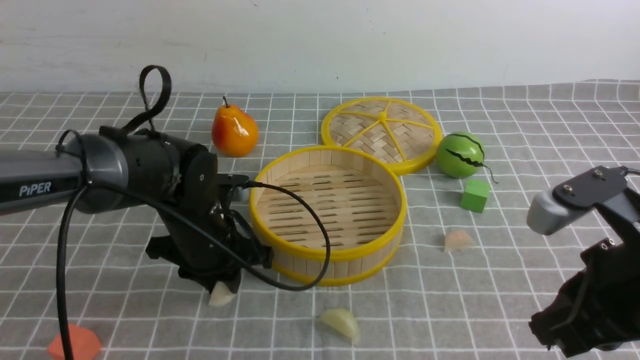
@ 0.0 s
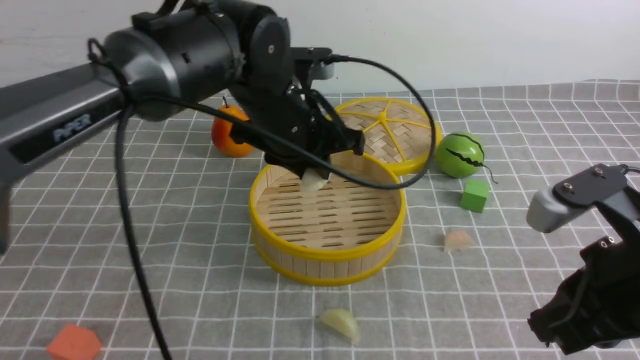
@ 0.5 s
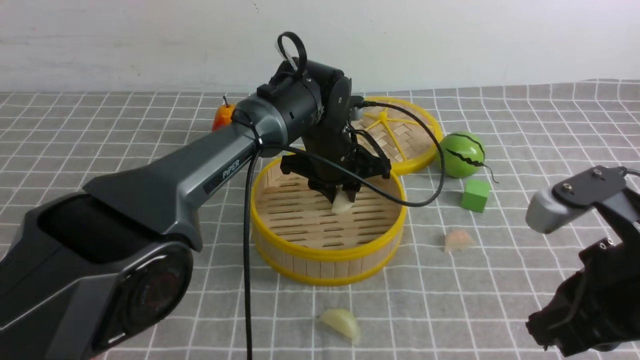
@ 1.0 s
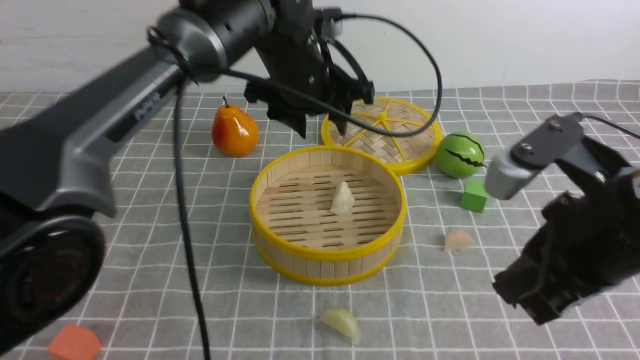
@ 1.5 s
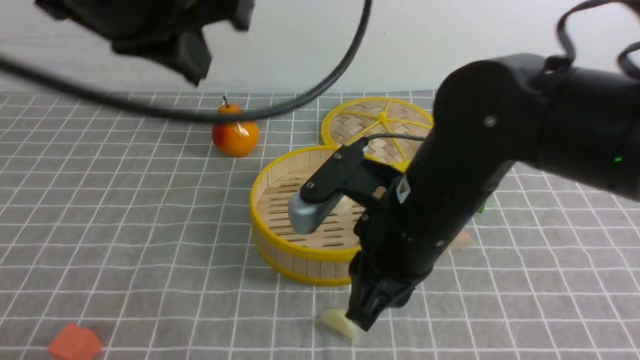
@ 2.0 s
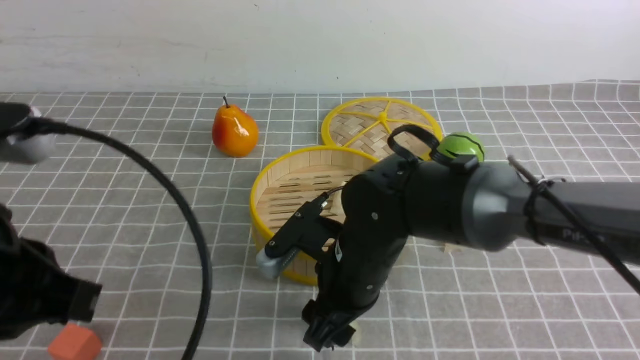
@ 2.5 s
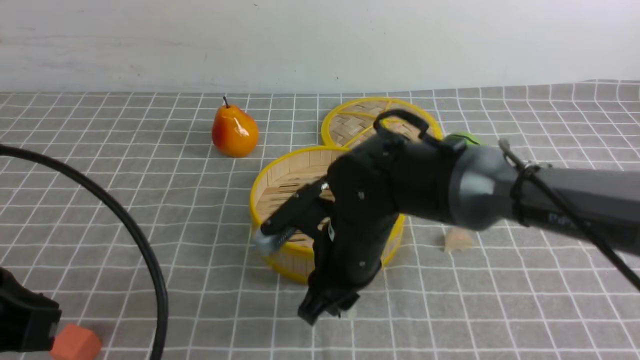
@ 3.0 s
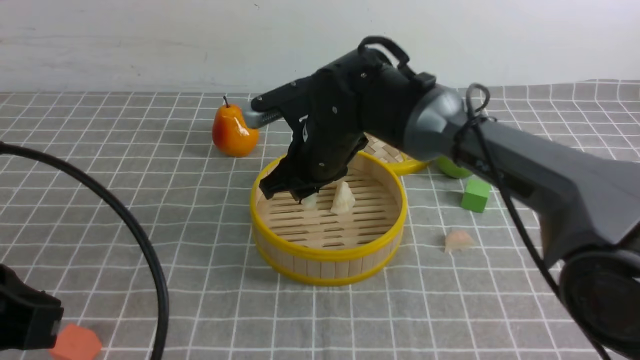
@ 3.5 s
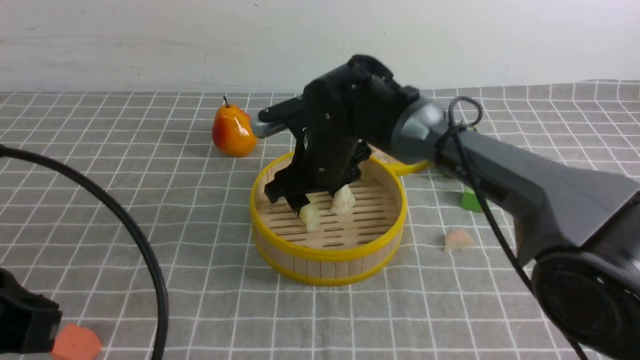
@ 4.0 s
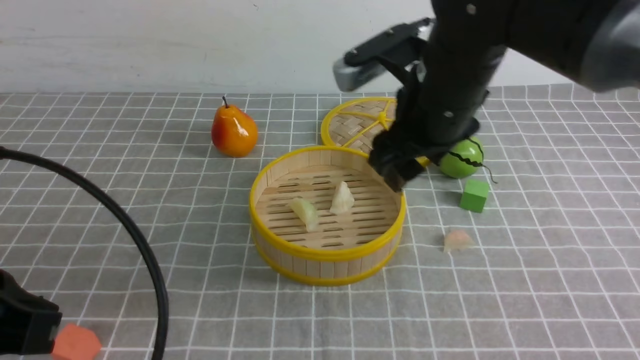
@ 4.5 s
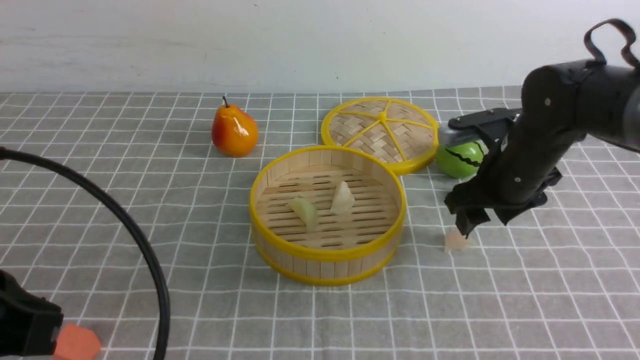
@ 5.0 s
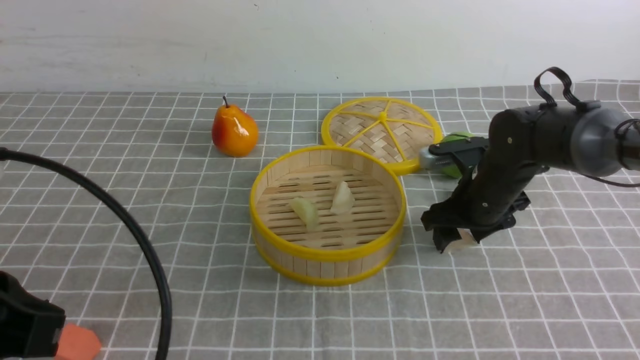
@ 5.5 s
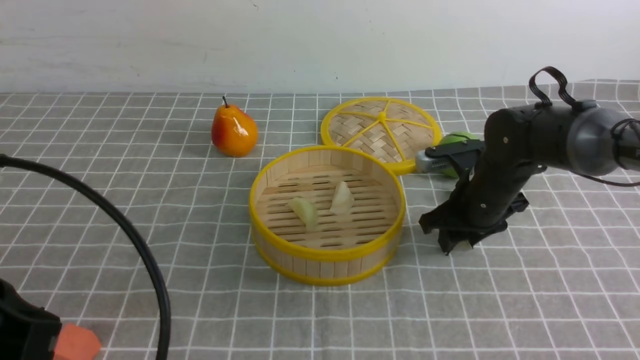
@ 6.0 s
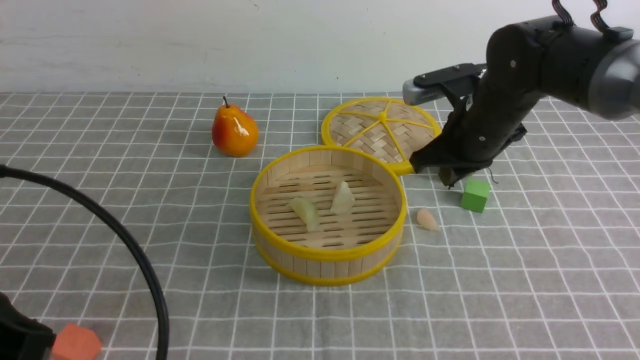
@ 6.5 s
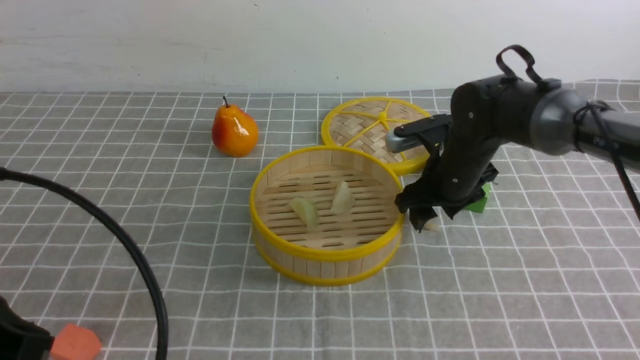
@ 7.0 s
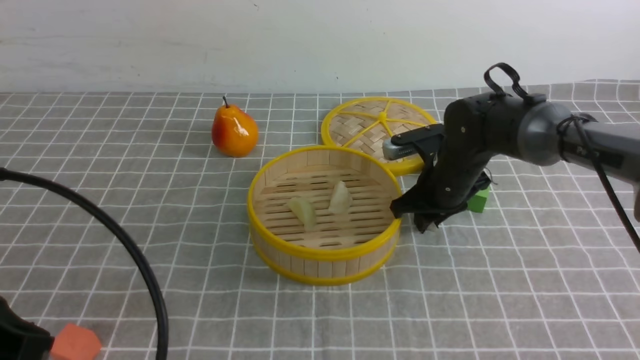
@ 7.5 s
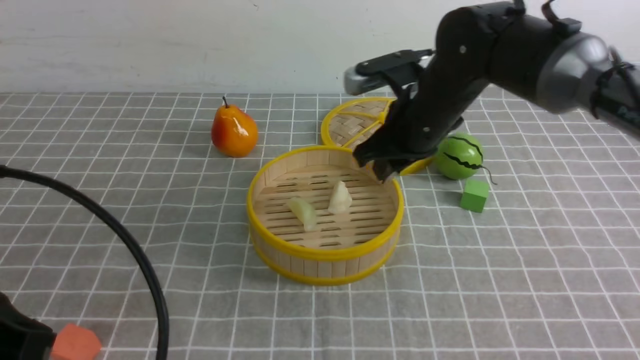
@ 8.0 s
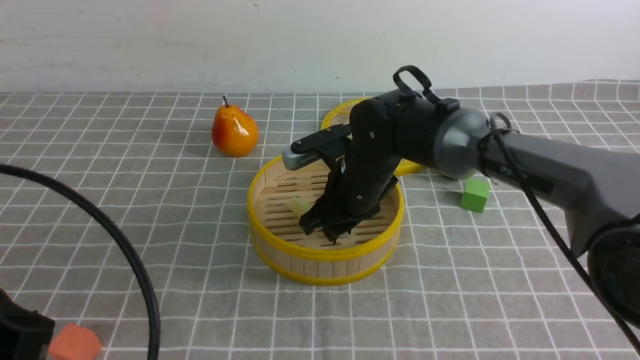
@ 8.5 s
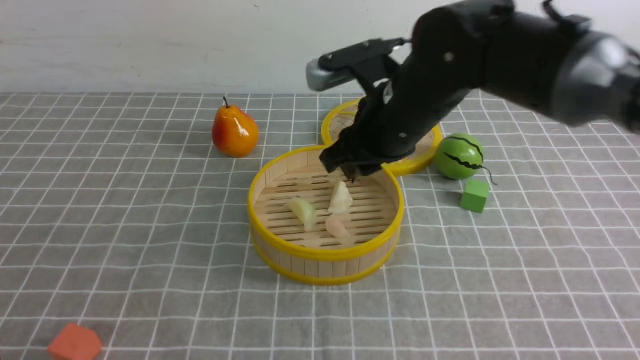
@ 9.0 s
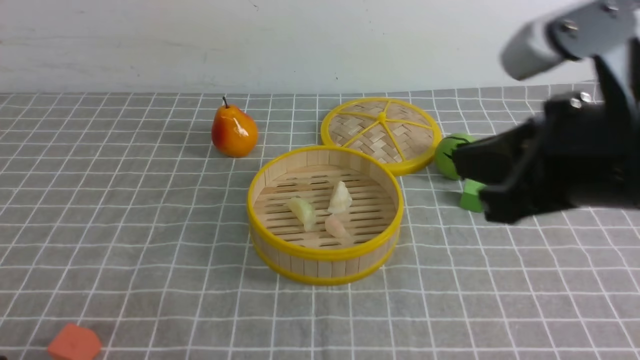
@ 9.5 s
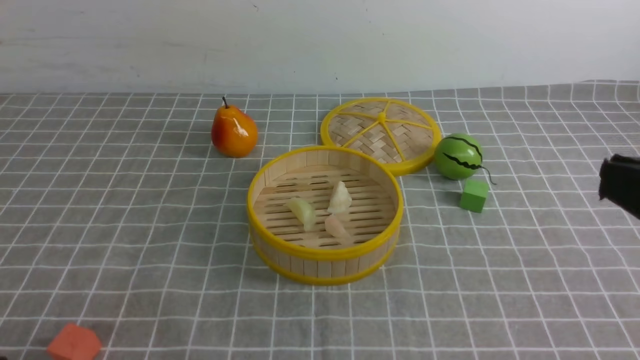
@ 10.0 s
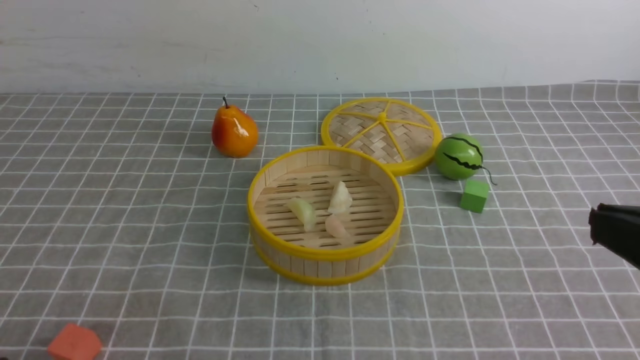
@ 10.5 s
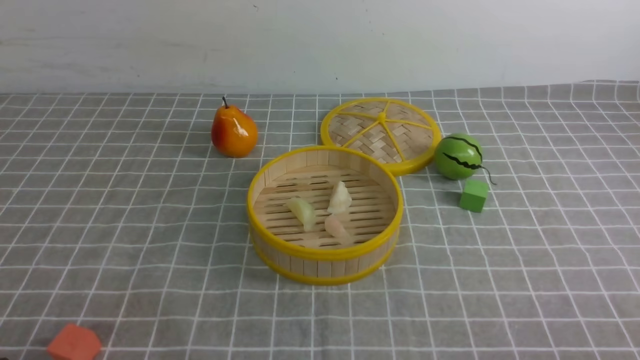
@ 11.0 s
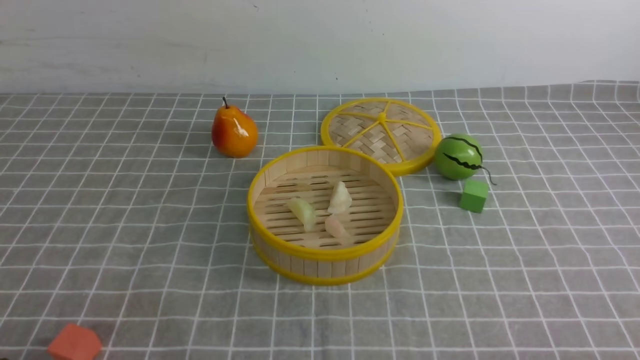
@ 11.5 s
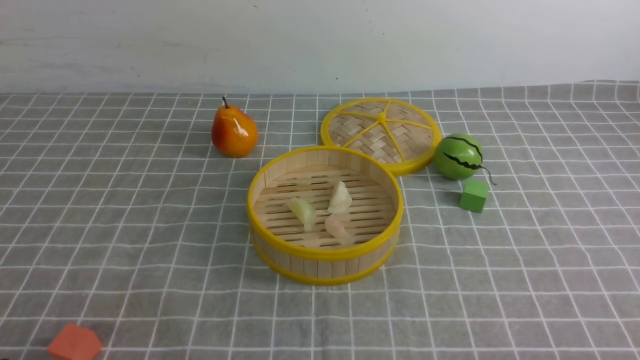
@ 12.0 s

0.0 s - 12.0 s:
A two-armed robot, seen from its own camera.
Task of the whole recording: put the dumplings into the steamer on the table with the grey tablecloth.
Step, 0.5 s - 1.5 s: use the left arm to put the dumpling into the steamer.
Step, 2.0 s - 2.5 s: use the right arm to grab a dumpling.
Step, 3.5 s - 4.0 s: use the right arm to put the dumpling into the steamer.
Step, 4.5 s - 7.5 s: use the right arm to grab a dumpling.
Step, 8.0 s - 8.5 s: use the right arm to put the dumpling into the steamer.
0.0 s - 2.0 s: The left gripper goes up and down, about 25 cm each way, reversing 2 times, and closes. The right gripper is displaced to the left and forward by roughly 15 cm, and opens its fingers.
2.0 s - 4.0 s: The right gripper travels forward by roughly 15 cm, and opens its fingers, while the left gripper goes about 20 cm backward, downward and to the left.
4.0 s - 6.0 s: The right gripper moves to the right and downward, roughly 20 cm, and closes its fingers.
6.0 s - 8.0 s: The right gripper goes some 10 cm to the left and upward.
8.0 s - 10.0 s: The right gripper goes approximately 35 cm backward and to the right, and closes its fingers. Meanwhile the left gripper shifts about 10 cm backward and downward.
10.0 s - 12.0 s: The right gripper shifts about 20 cm downward.

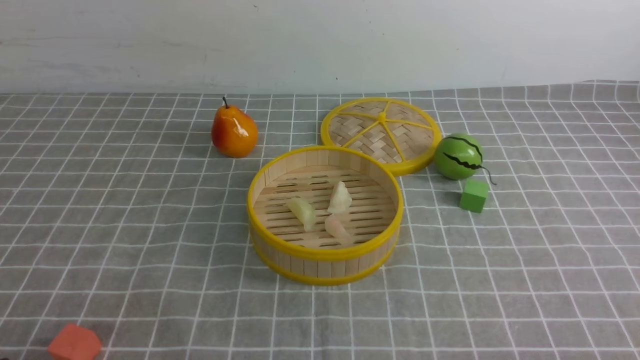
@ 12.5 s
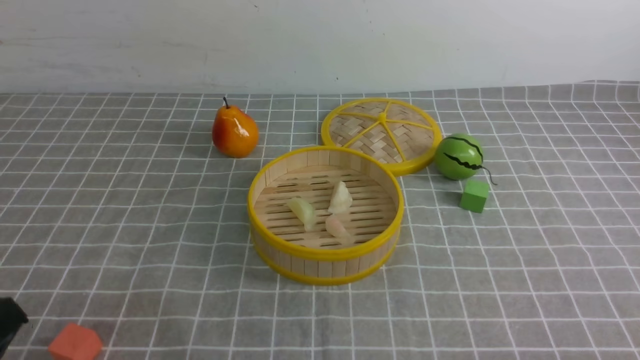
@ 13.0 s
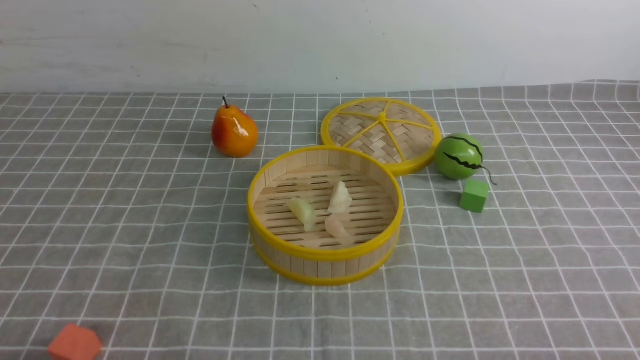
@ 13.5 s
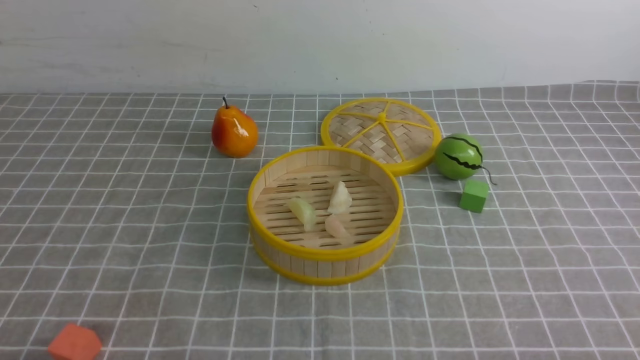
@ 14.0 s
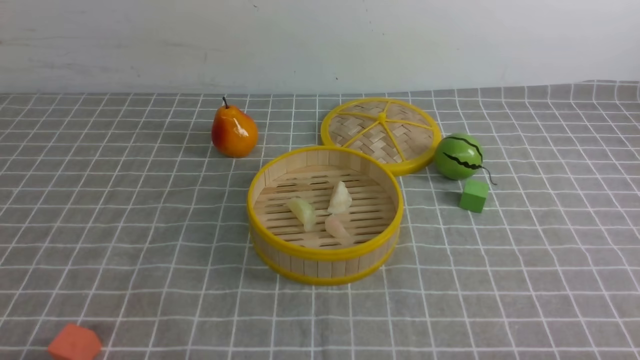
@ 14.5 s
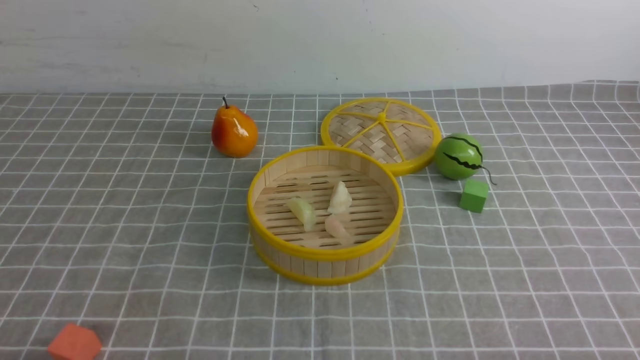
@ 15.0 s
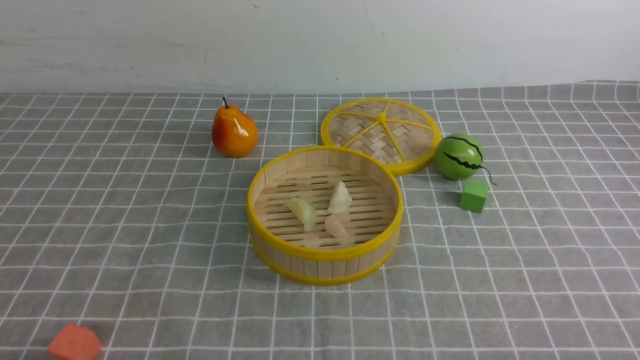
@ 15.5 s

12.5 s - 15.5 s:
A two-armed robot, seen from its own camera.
Task of the whole recording: put the dumplings into the steamer on the table with the grey tablecloth.
14.0 s - 15.5 s: Both grippers stay put.

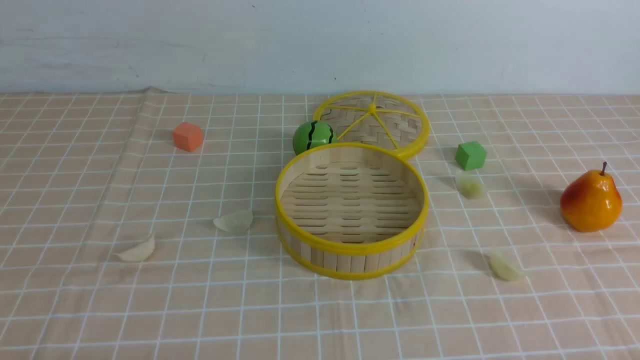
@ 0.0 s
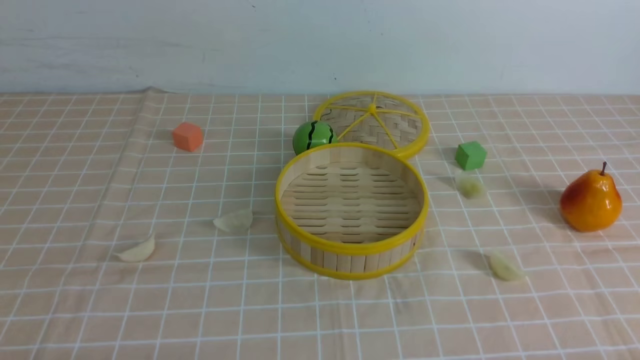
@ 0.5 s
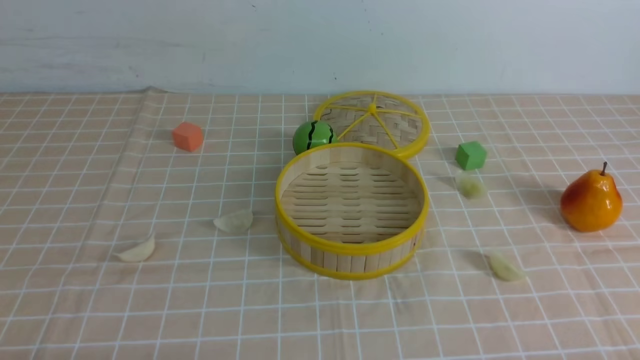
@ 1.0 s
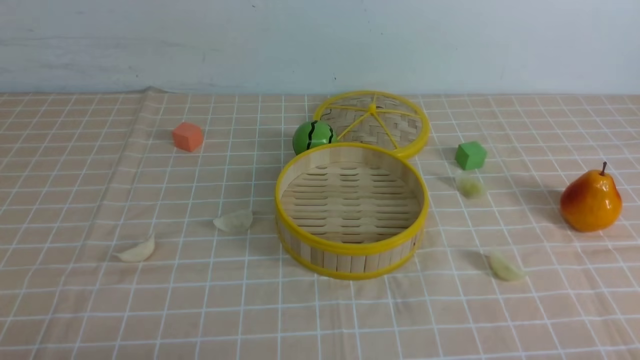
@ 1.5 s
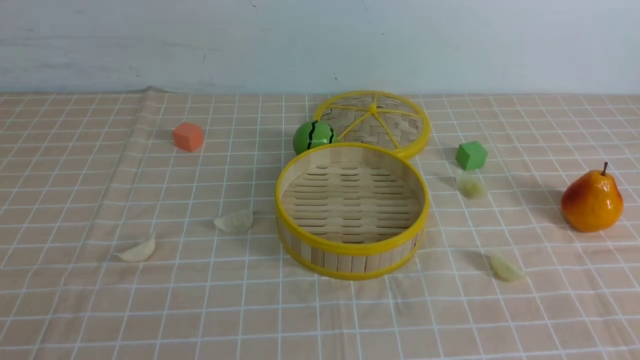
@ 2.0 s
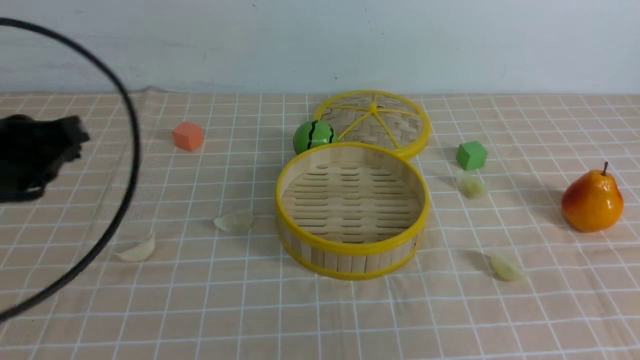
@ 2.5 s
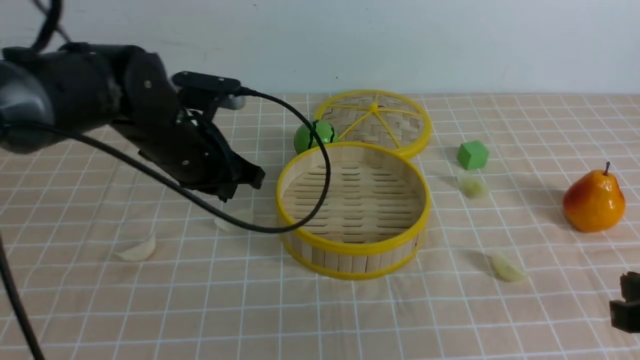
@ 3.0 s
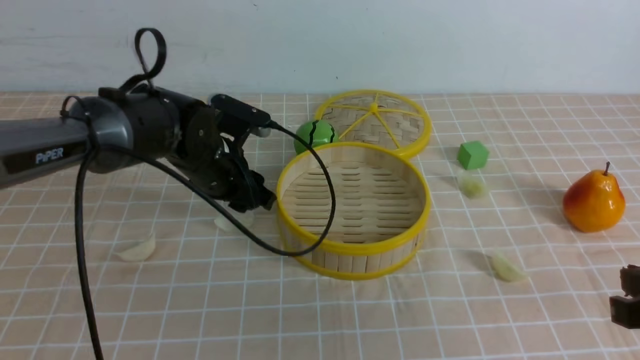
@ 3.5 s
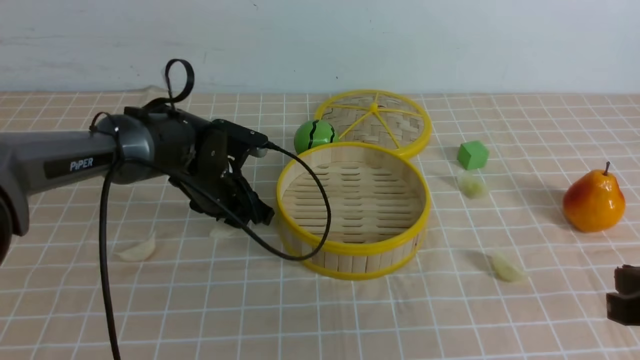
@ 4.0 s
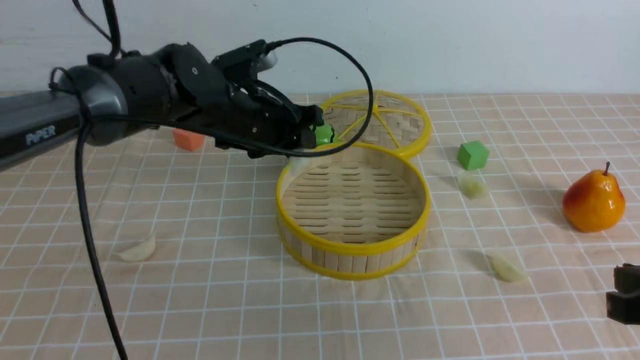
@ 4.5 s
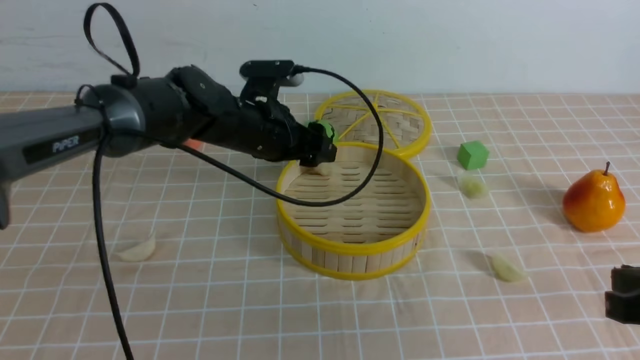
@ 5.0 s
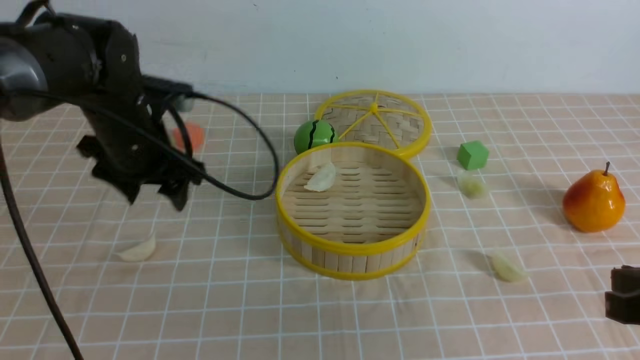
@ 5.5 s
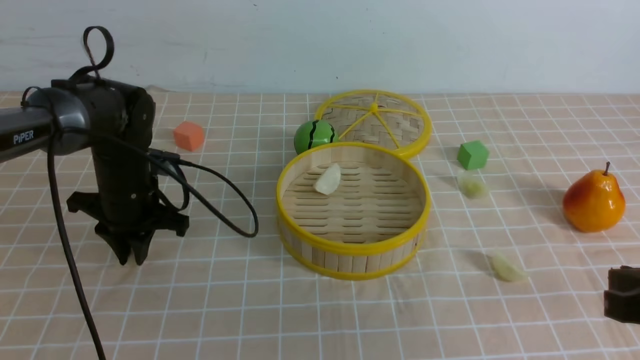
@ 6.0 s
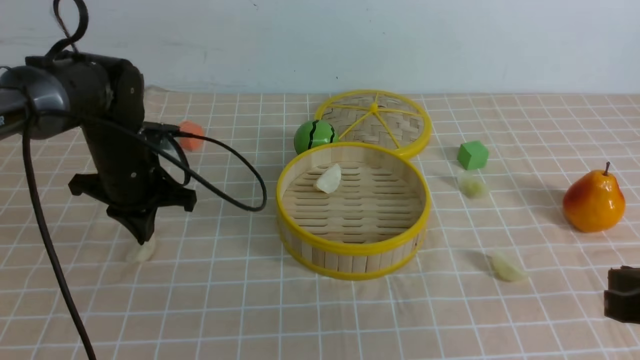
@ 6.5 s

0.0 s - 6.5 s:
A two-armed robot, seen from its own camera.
Task of the whole recording: put the dumplings into the steamer on the table with the brown tablecloth.
Step, 0.0 s - 3.5 s: use the left arm to grab a dumpling.
Step, 4.0 s - 5.0 s: use the left arm to put the dumpling into the steamer.
2.0 s - 4.5 s: The right gripper is displaced forward by some 10 cm. The left gripper is displaced forward and to the right by about 40 cm, and opens up.
4.5 s - 6.5 s: The left gripper travels to the left by about 10 cm, and closes its fingers.
